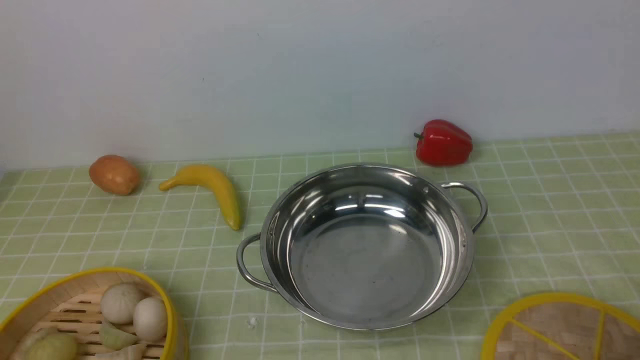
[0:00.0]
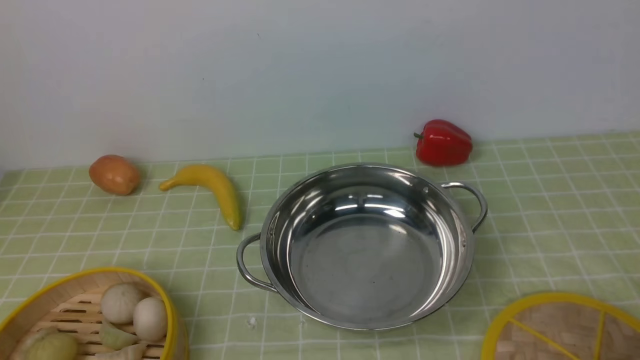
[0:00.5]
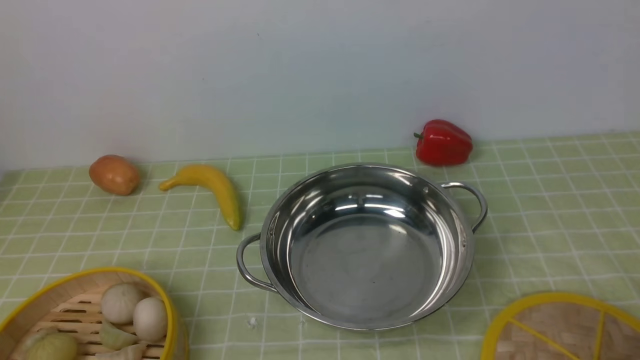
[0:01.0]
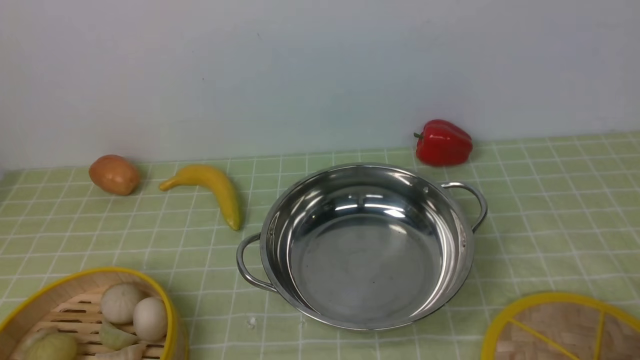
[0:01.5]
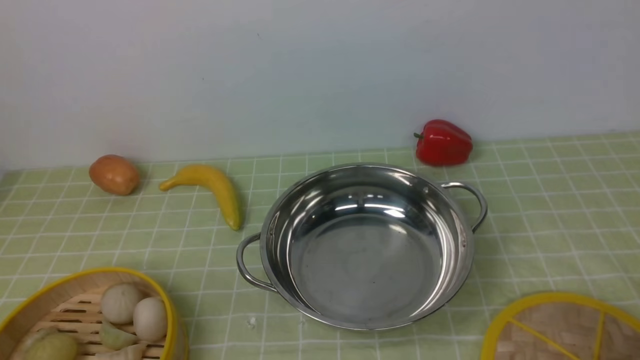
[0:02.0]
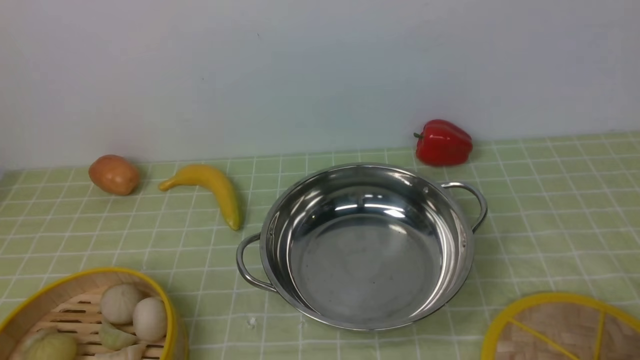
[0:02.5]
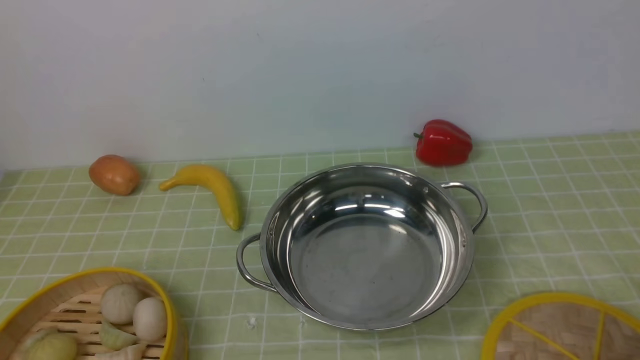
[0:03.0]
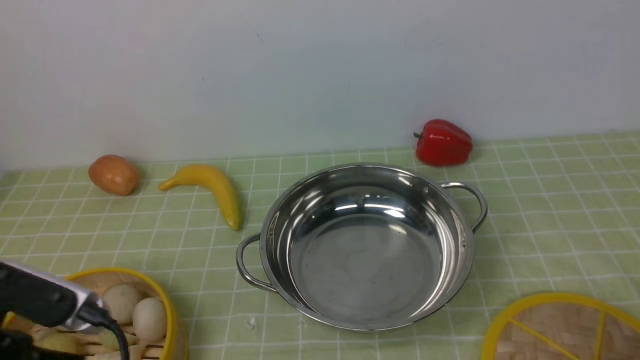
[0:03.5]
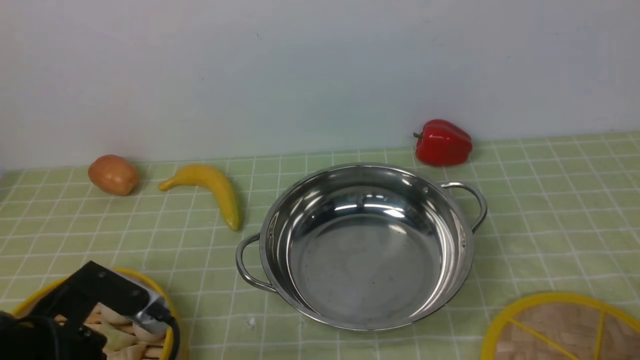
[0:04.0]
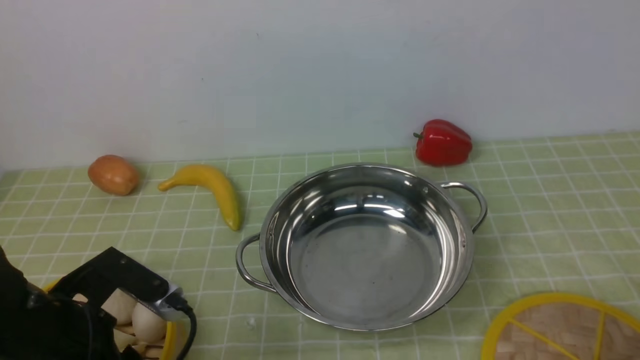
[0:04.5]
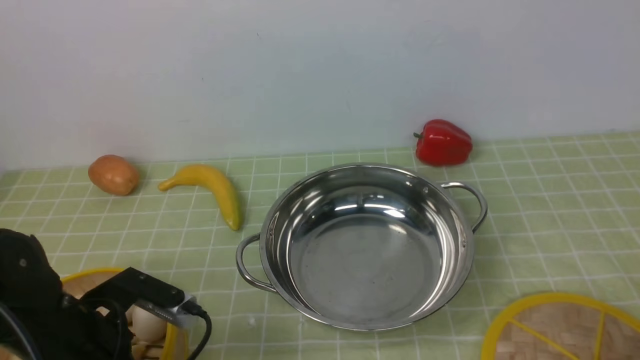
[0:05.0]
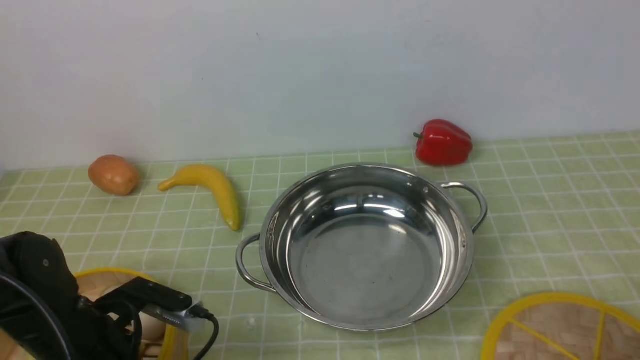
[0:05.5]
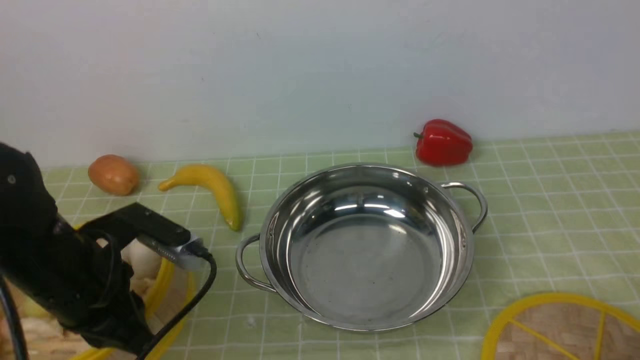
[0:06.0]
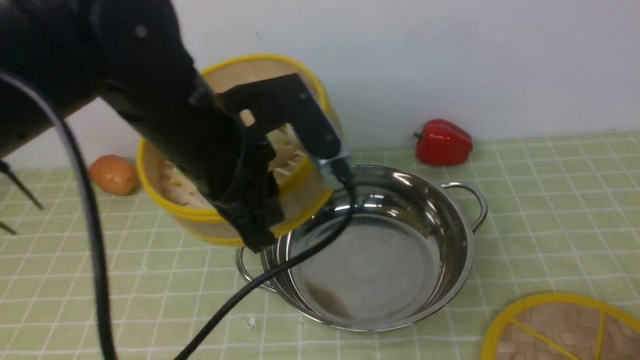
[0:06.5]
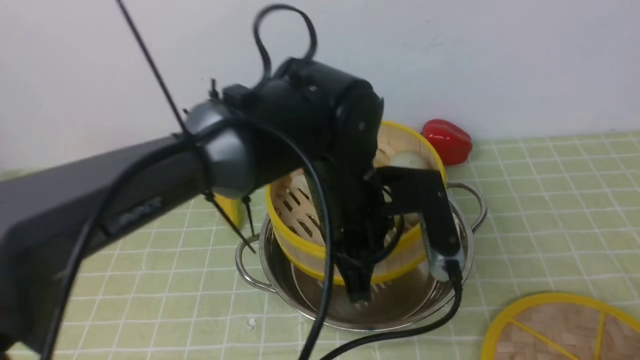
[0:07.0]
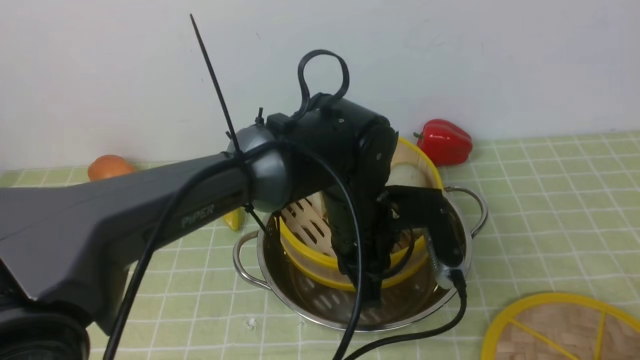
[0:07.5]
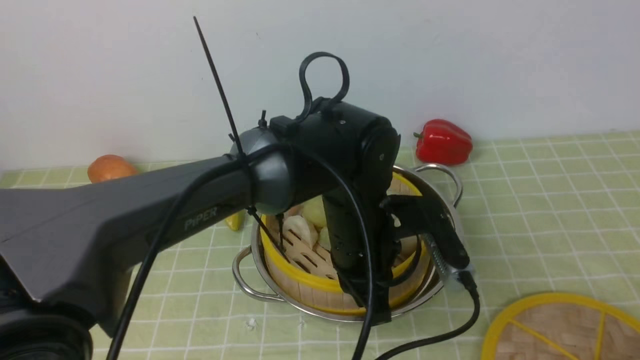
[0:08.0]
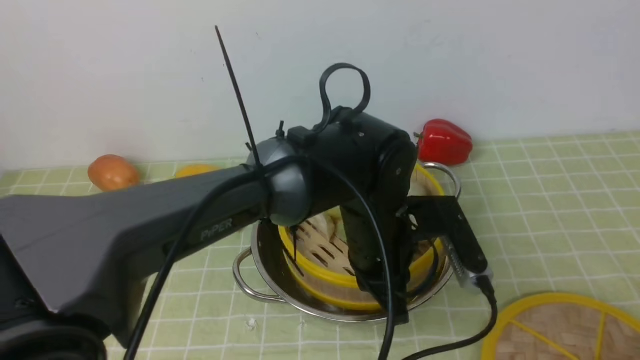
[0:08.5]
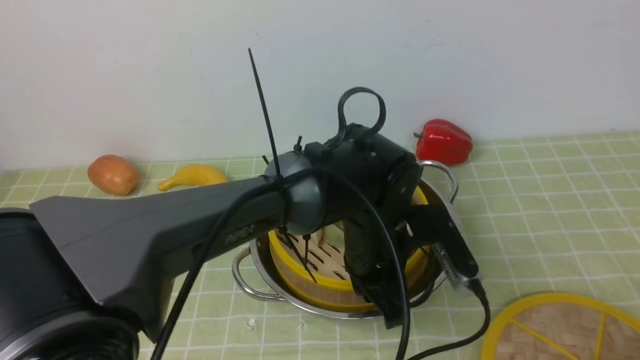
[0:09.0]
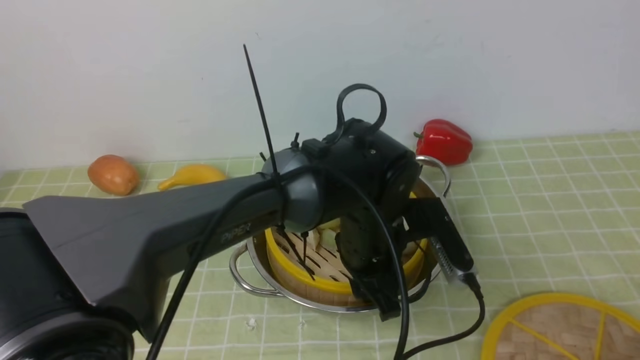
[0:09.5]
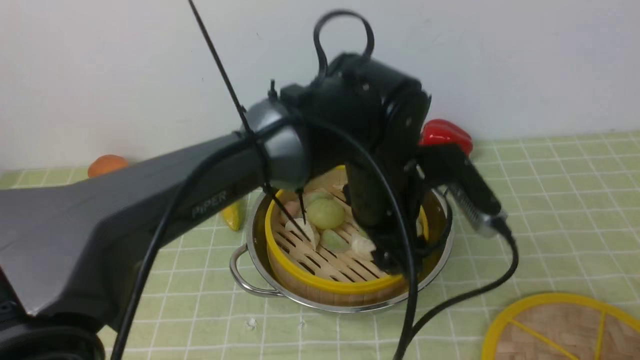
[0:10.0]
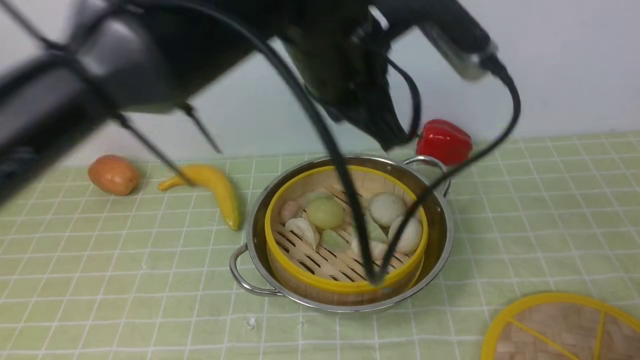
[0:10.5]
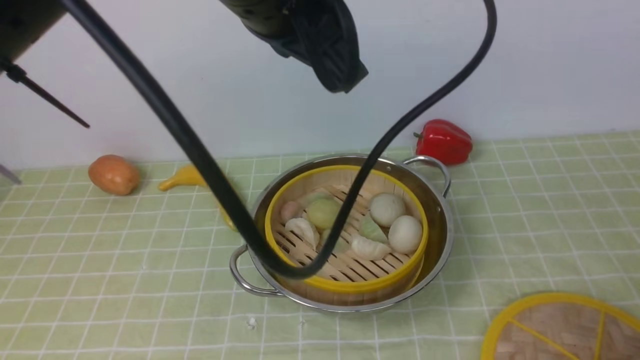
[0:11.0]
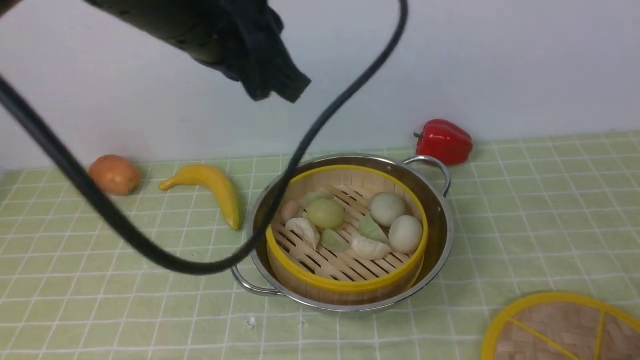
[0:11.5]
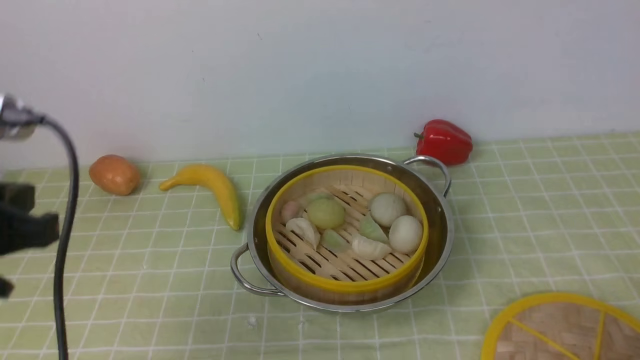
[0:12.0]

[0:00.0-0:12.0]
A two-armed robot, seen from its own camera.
Task of the whole recording: place the steamer in the pot on the green tablecloth, and put the lid on the steamer.
Step, 0:00.0 to 0:06.0: use the left arm to lift the steamer closest to it.
Step, 0:06.5 to 0:10.0: use the left arm to put the steamer into the iron steamer pot in the middle.
0:02.0 to 0:04.0: The left gripper travels forward by some 10 cm.
0:04.0 to 0:06.0: The left gripper moves forward, approximately 10 cm, goes downward and returns, approximately 5 cm each way, and closes.
0:06.0 to 0:08.0: The left gripper shifts about 25 cm to the right.
0:08.0 to 0:10.0: The left gripper shifts by roughly 5 cm, and opens its fingers.
0:10.0 to 0:12.0: The left gripper heads to the left and backward, covering approximately 35 cm, and closes its fingers.

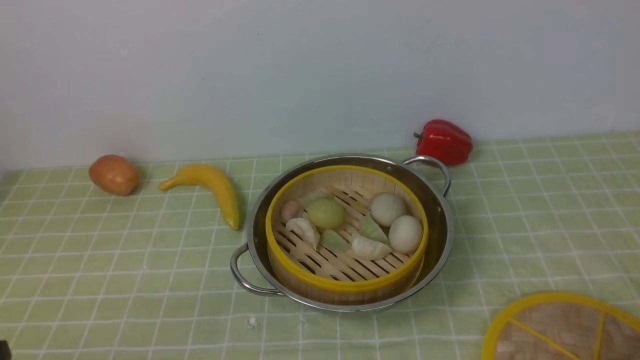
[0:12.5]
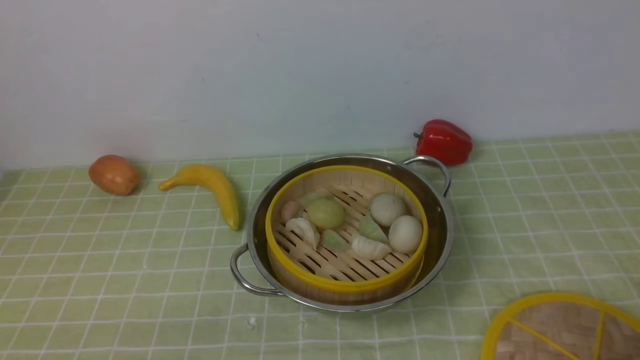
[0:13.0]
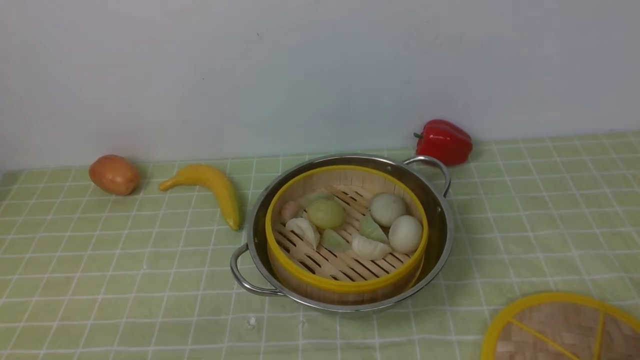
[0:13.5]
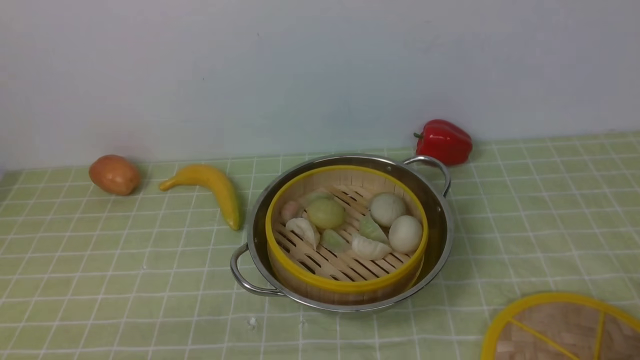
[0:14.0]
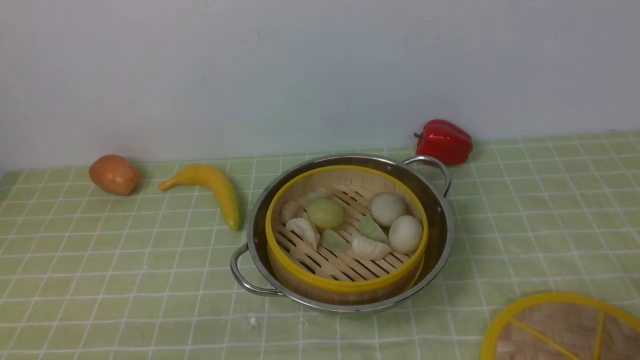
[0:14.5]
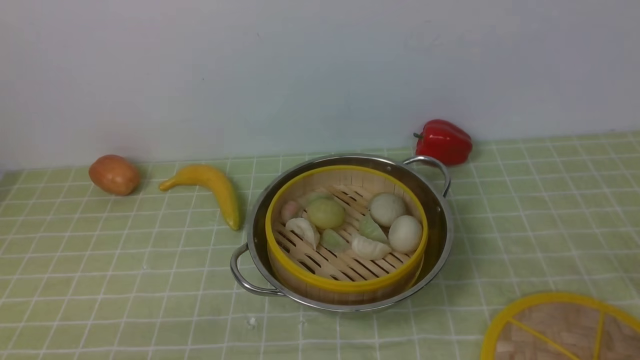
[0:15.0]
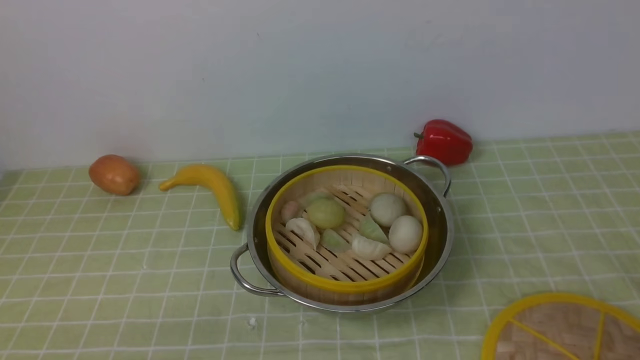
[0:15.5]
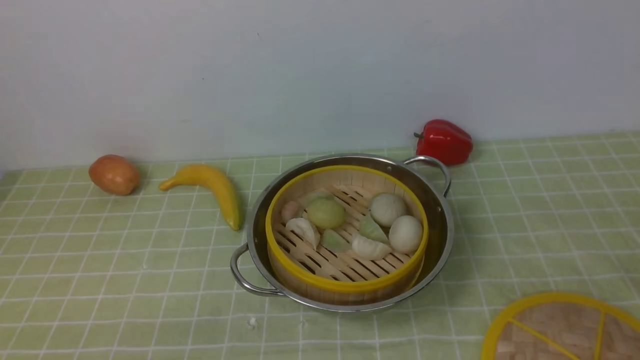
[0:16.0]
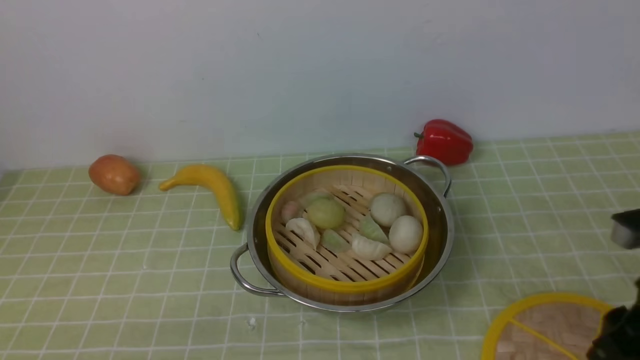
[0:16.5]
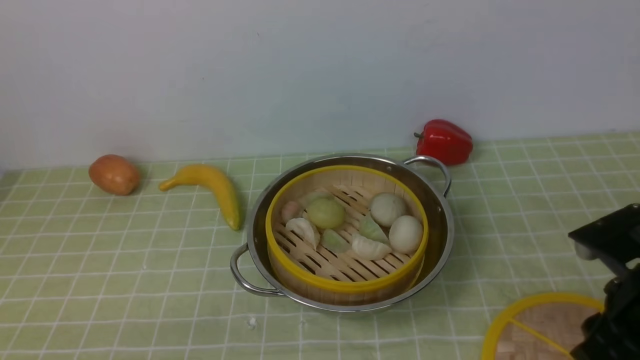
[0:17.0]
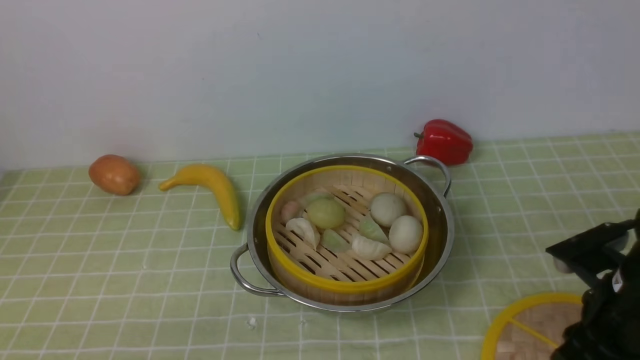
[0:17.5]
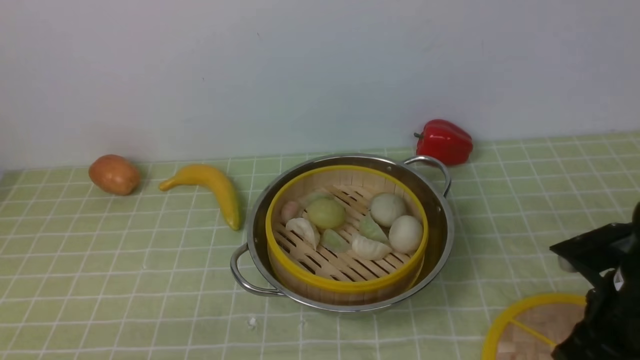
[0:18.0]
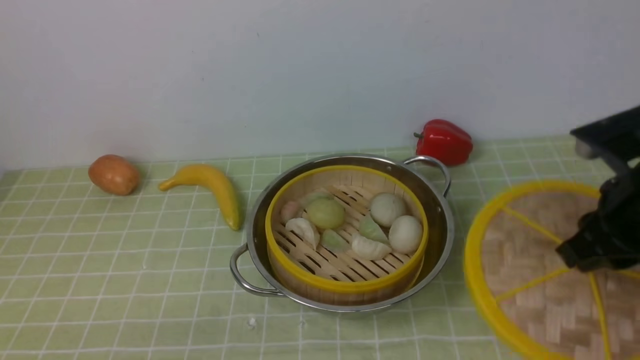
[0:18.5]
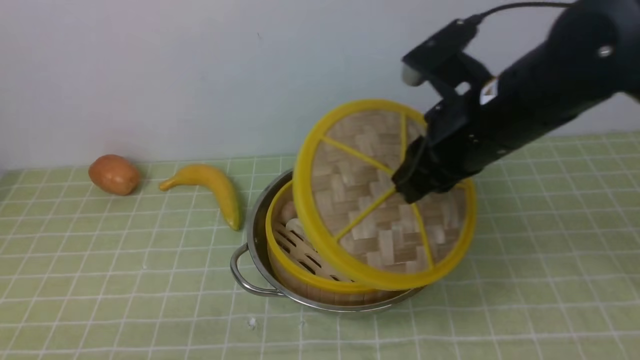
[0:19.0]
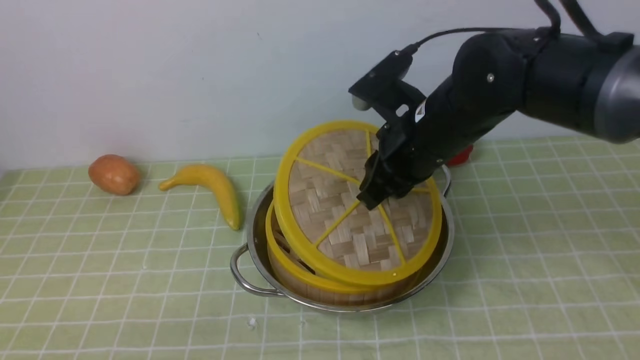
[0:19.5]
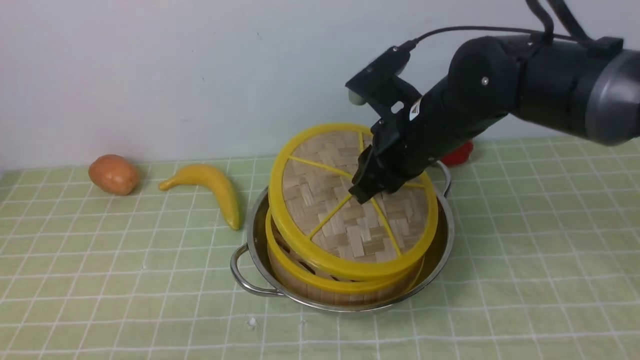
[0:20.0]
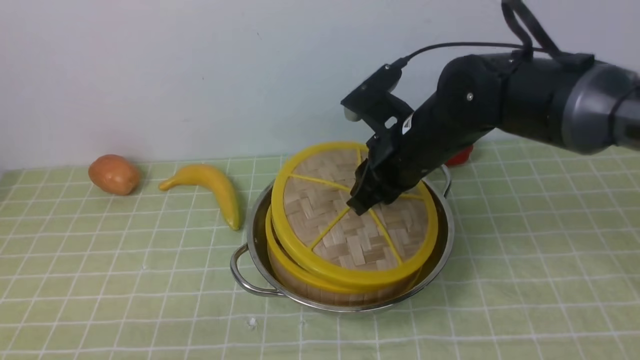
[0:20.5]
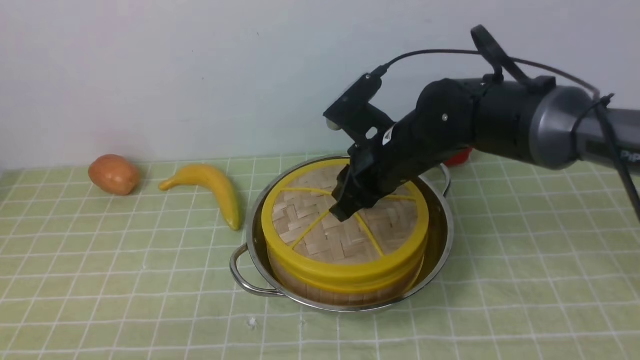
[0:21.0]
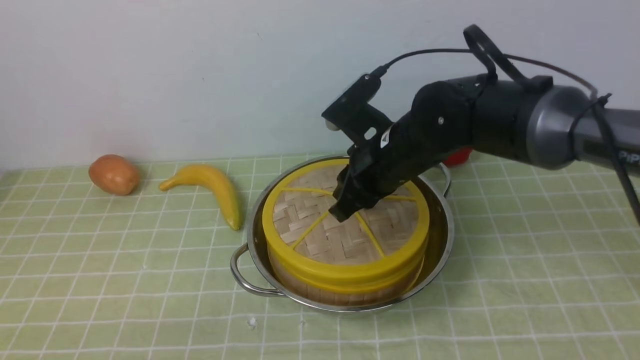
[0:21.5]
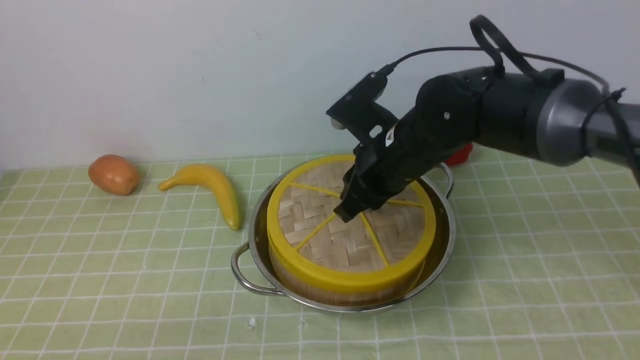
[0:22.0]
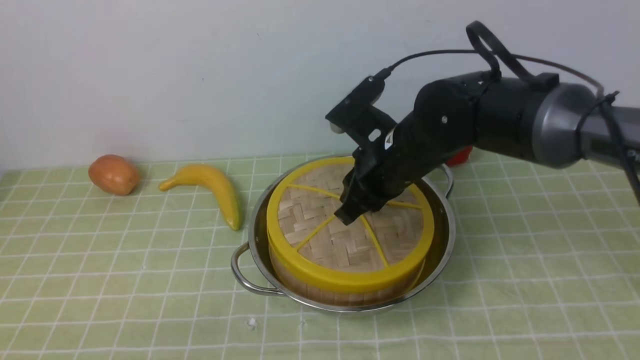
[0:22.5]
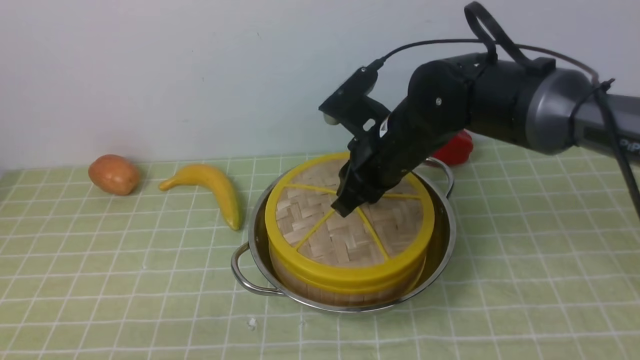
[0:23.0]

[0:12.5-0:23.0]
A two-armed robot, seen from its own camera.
Task of the whole recording: place the steamer in the pot on the green tablecloth, and put the lid on the steamer.
Step, 0:12.5 to 0:18.5: use the right arm to lift the lid of the steamer.
0:14.5 to 0:16.5: The right gripper is displaced forward by roughly 15 cm, and opens.
0:16.5 to 0:19.0: The right gripper is displaced to the left, forward and upward by approximately 20 cm, and closes up.
0:19.0 to 0:21.0: The right gripper shifts about 10 cm downward, to the left and forward.
0:21.0 to 0:23.0: The grippers stay close to where they were, moving slightly.
